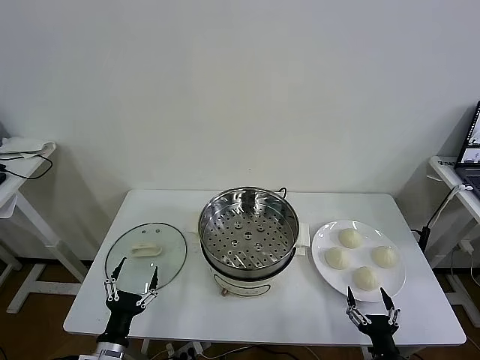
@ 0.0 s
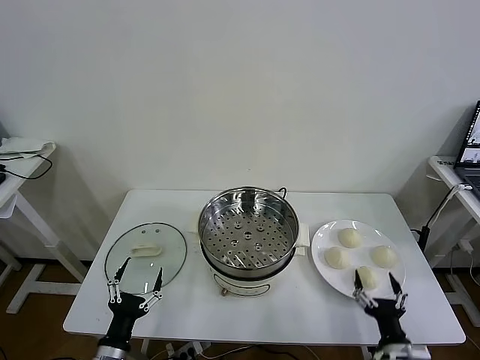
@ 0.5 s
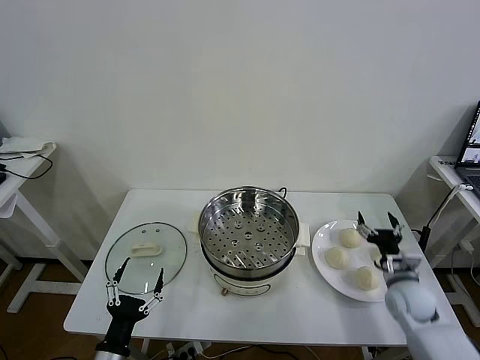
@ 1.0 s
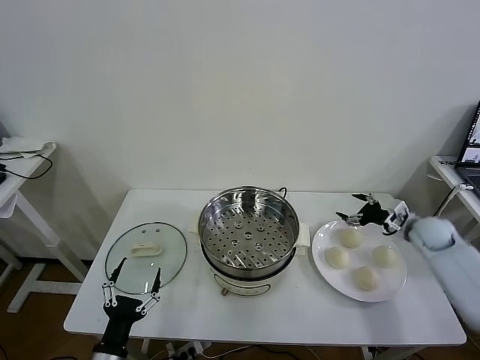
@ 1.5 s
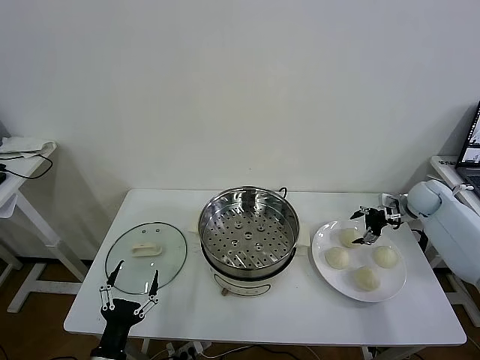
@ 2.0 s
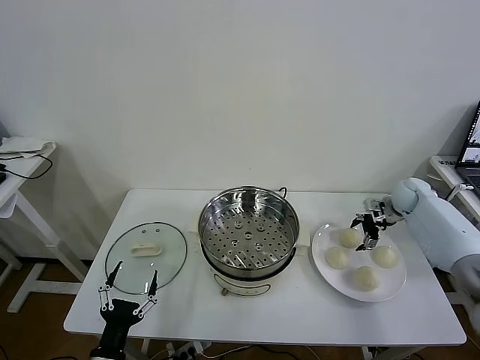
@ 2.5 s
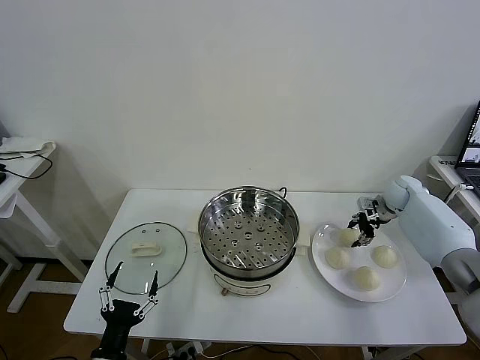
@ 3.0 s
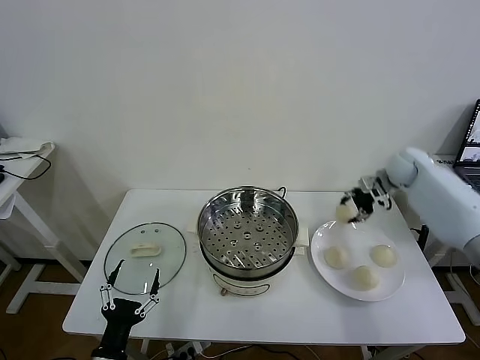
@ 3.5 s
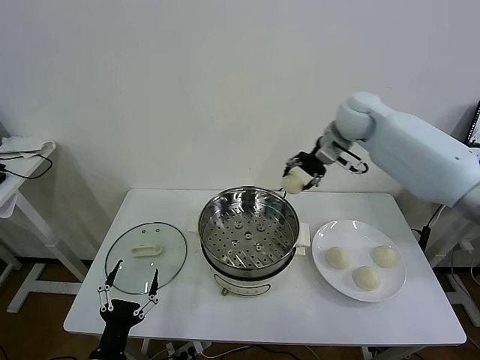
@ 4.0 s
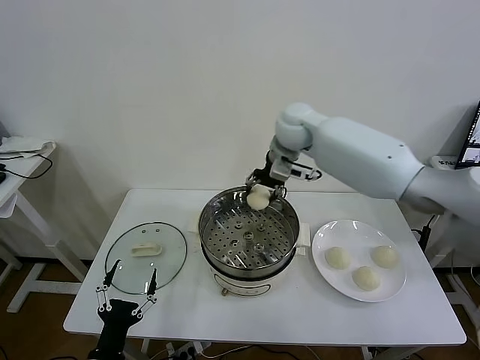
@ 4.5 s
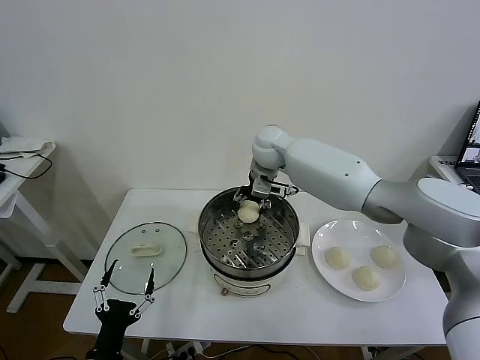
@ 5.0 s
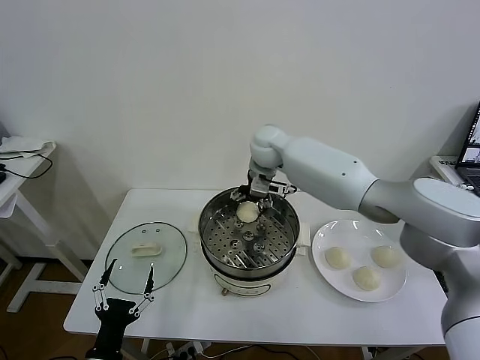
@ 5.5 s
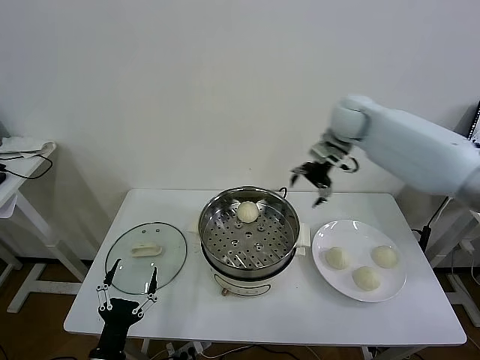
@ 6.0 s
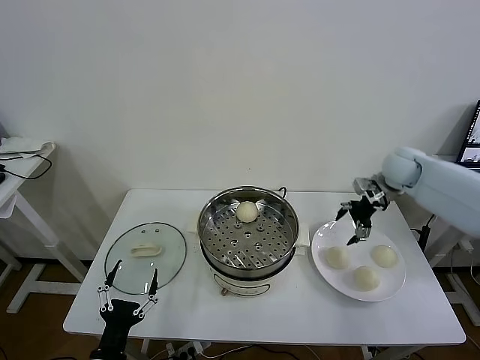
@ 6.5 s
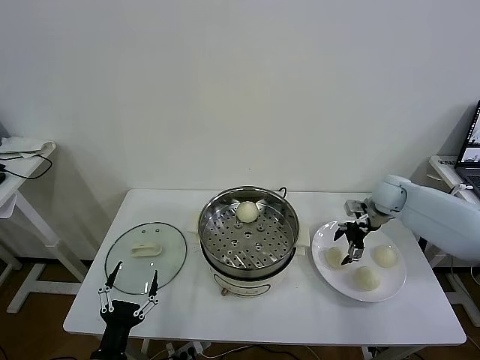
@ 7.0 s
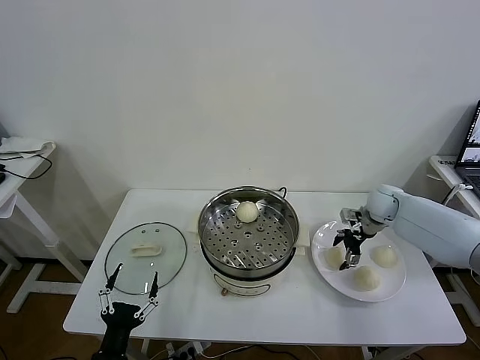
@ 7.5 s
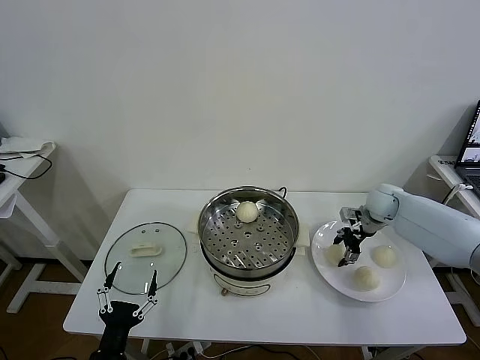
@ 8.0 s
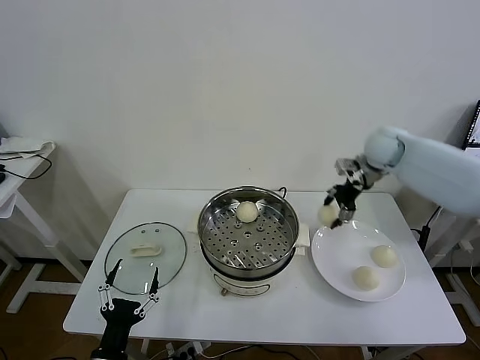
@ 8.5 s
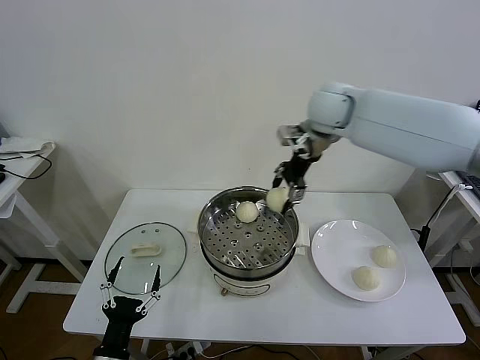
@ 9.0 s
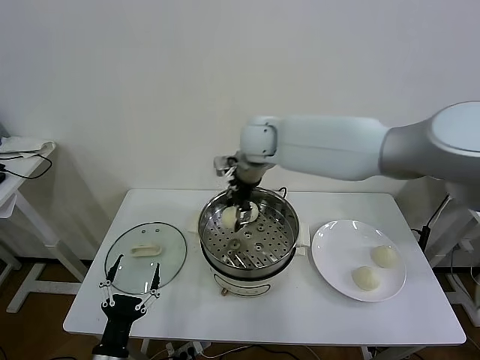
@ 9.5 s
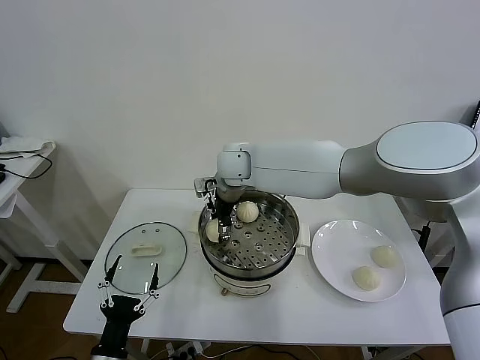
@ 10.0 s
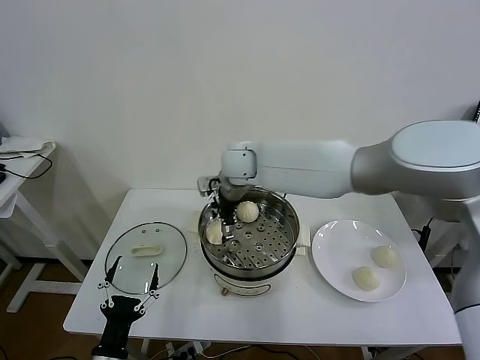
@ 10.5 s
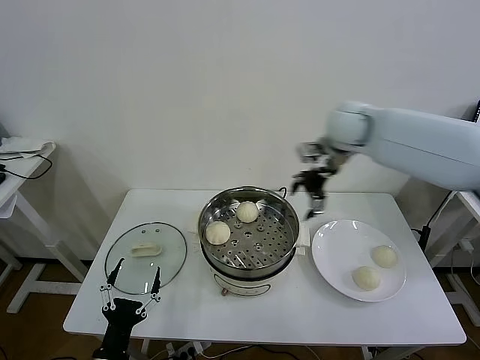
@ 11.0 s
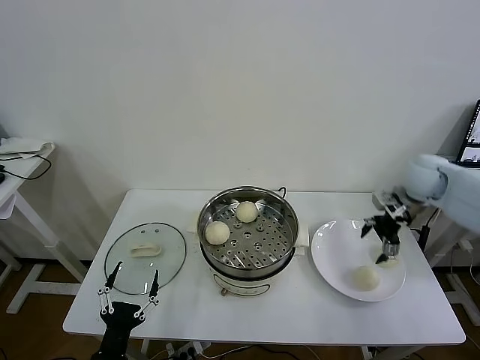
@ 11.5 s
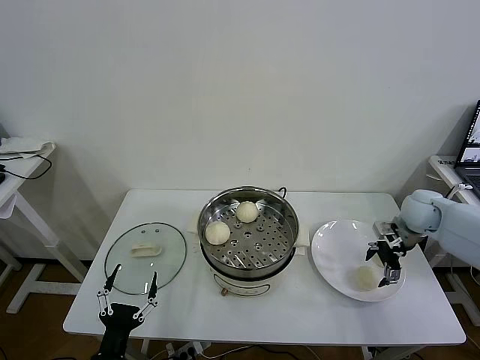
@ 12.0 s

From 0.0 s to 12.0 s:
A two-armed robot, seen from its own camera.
Task of the whole recording: take steamed baozi put them in steamer then cover it.
Step, from 0.0 s to 3.0 s: Grasp the baozi in the plate with right gripper.
Step, from 3.5 s to 5.0 s: Place the baozi on the steamer with right gripper.
Step, from 5.5 s to 7.5 s: Grasp the baozi in the plate with right gripper.
Step, from 8.0 s to 10.0 s: Place the baozi on the steamer with right gripper.
From 2.0 s to 4.0 s: The right gripper travels to the left and upward by about 35 cm, and closes its fingers.
From 4.0 s to 6.0 s: The right gripper goes some 10 cm to the right, and opens up.
From 6.0 s to 8.0 s: The right gripper moves downward and to the right, approximately 20 cm, and closes its fingers.
From 8.0 s to 10.0 s: The right gripper heads to the left, covering approximately 40 cm.
From 10.0 s to 12.0 s: The right gripper shifts approximately 40 cm to the right, and opens up.

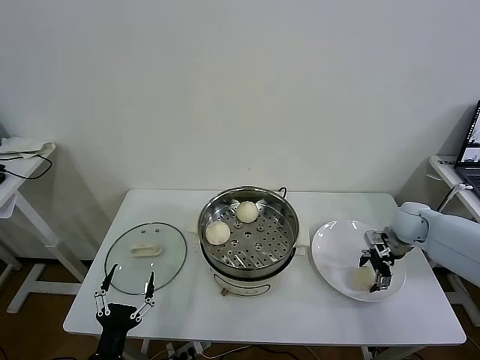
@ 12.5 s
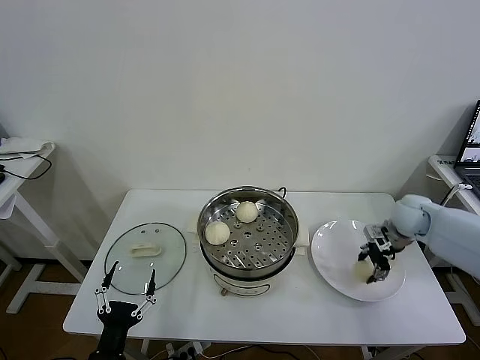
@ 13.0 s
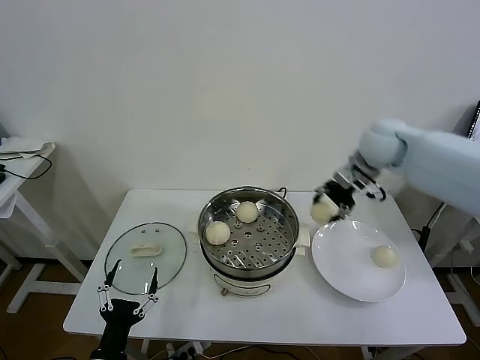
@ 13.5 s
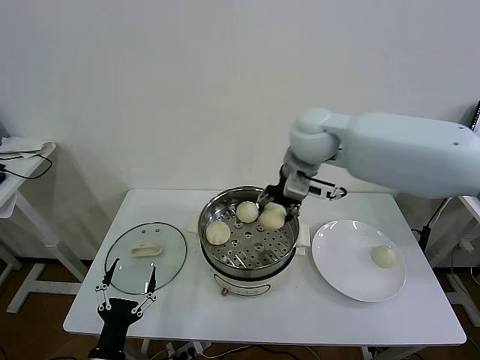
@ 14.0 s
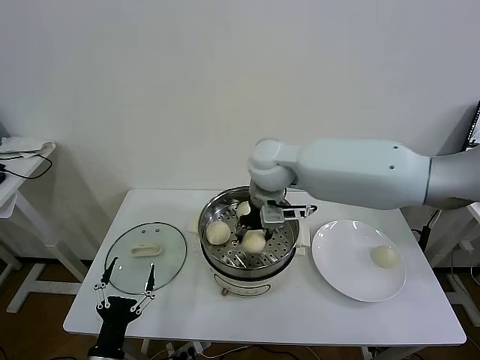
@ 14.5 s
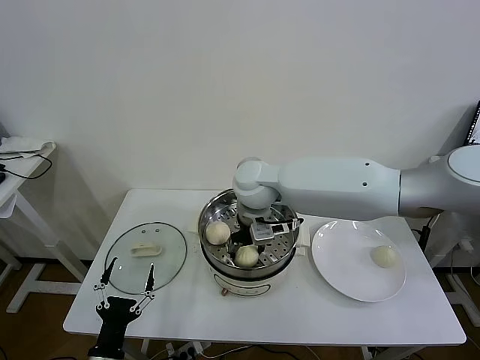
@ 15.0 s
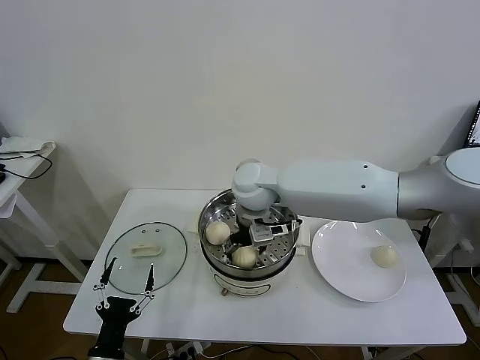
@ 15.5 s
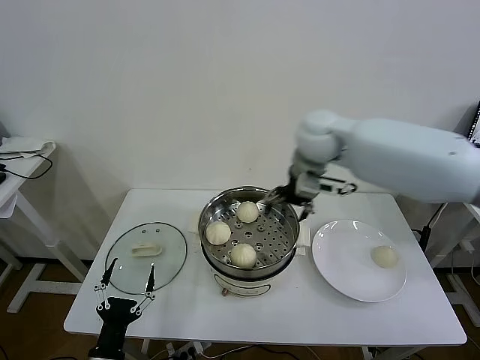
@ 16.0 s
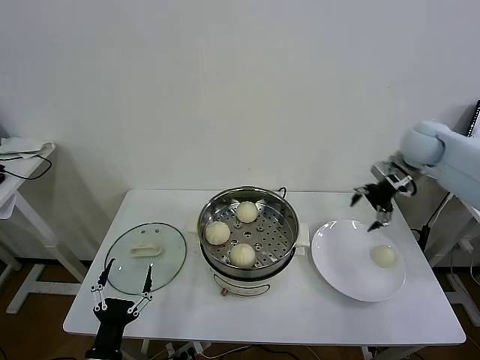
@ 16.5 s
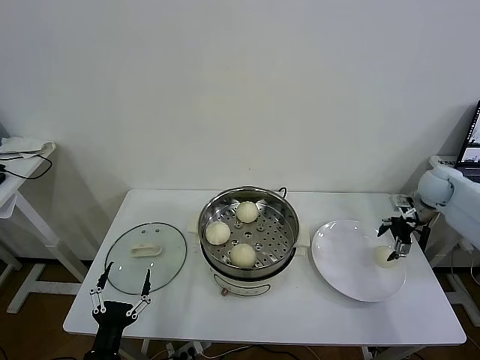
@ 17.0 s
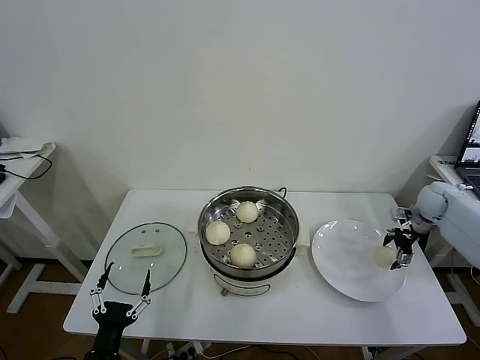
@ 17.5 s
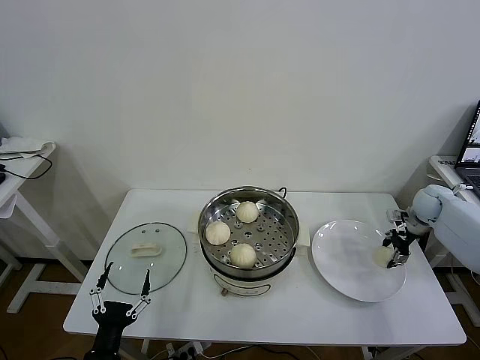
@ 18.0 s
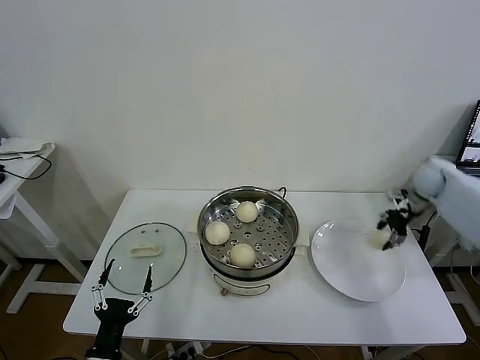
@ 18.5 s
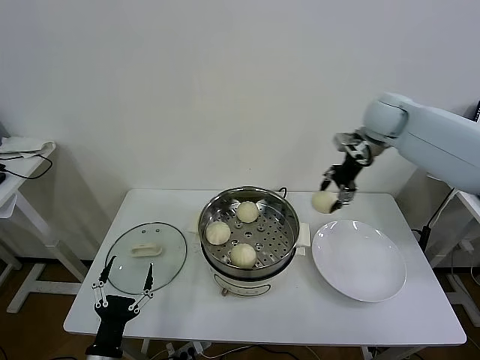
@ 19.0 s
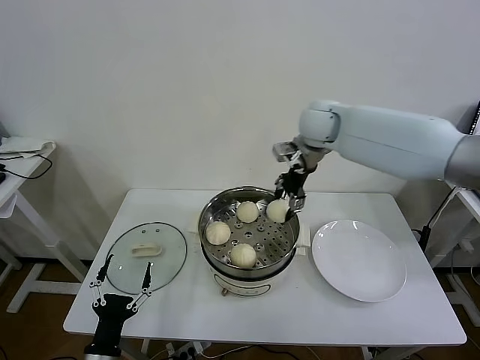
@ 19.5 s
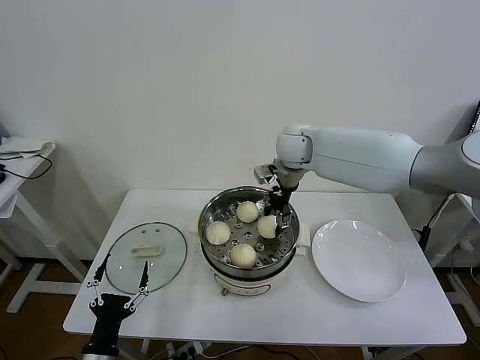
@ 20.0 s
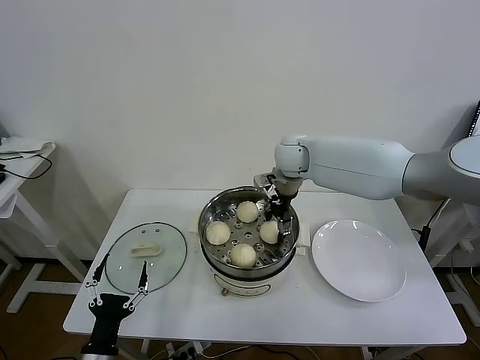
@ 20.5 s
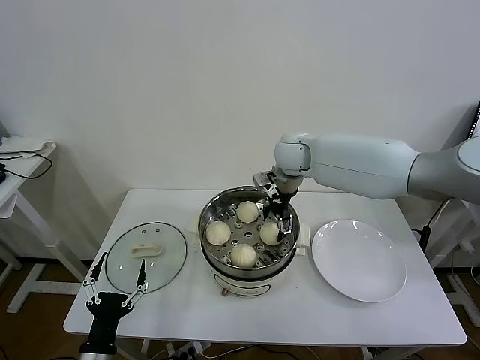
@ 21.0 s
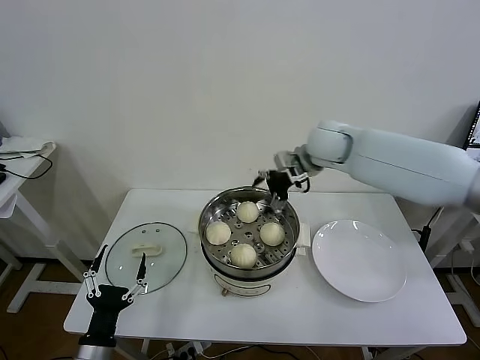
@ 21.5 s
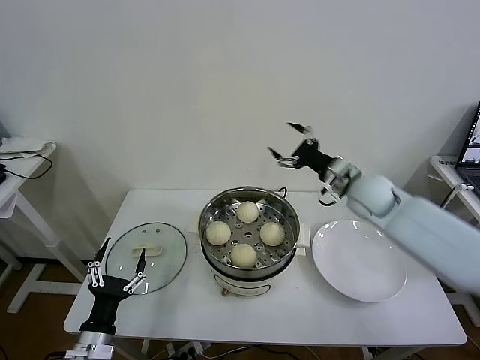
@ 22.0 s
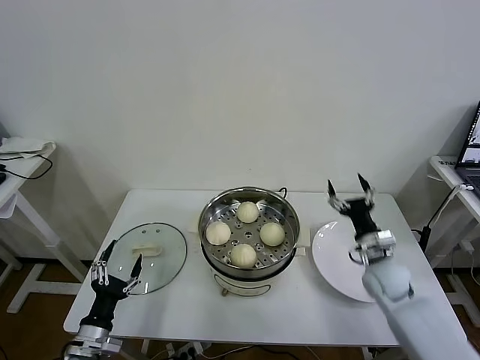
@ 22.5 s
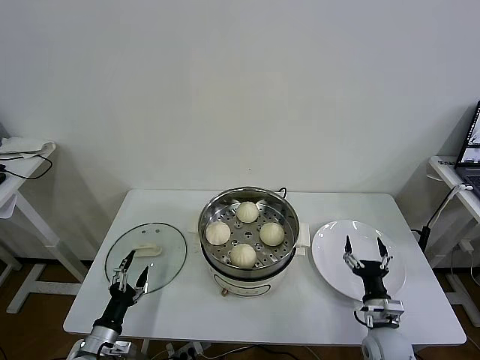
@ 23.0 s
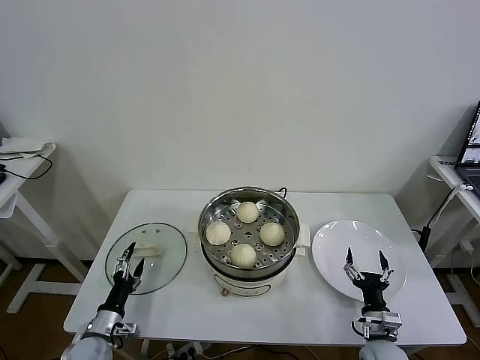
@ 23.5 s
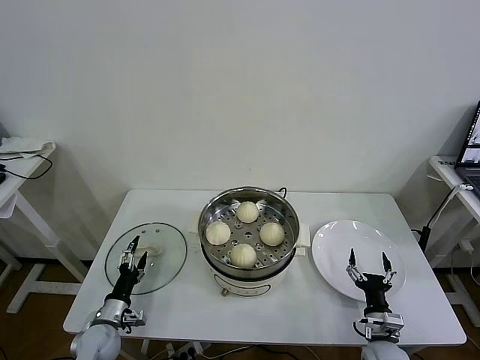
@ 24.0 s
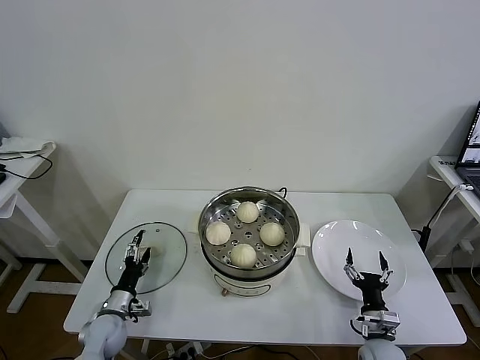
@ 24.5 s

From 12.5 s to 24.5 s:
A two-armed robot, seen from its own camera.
Task of the whole recording: take steamed baozi put them in steamer then cover it.
Step, from 13.0 s to 15.0 s: Place the baozi on the steamer with right gripper.
Step, from 15.5 s to 18.0 s: Grasp the baozi in the plate with right gripper.
Step, from 18.5 s to 20.5 s: Place the baozi on the steamer with right gripper.
From 12.5 s to 14.5 s: The right gripper heads to the left and upward, covering about 40 cm, and closes up.
From 14.5 s to 16.5 s: The right gripper shifts about 35 cm to the right, and opens up.
From 16.5 s to 18.5 s: The right gripper is displaced downward and to the right by about 10 cm, and closes up.
From 18.5 s to 20.5 s: The right gripper goes about 35 cm to the left, and opens up.
From 20.5 s to 22.5 s: The left gripper travels forward by approximately 5 cm, while the right gripper heads to the right, downward and backward, covering some 35 cm, and opens up.
From 22.5 s to 24.5 s: The left gripper goes about 15 cm forward and downward. Meanwhile the right gripper travels backward and downward by approximately 20 cm.

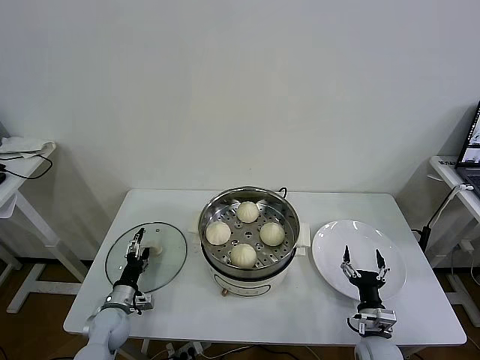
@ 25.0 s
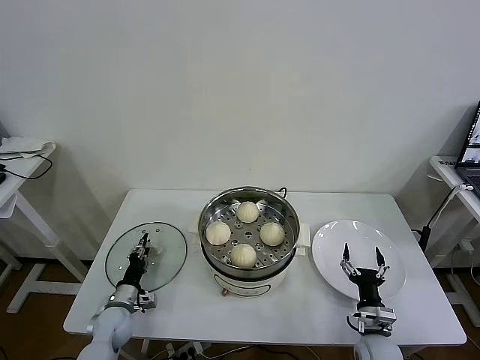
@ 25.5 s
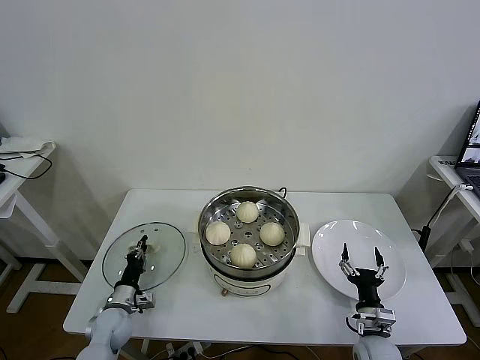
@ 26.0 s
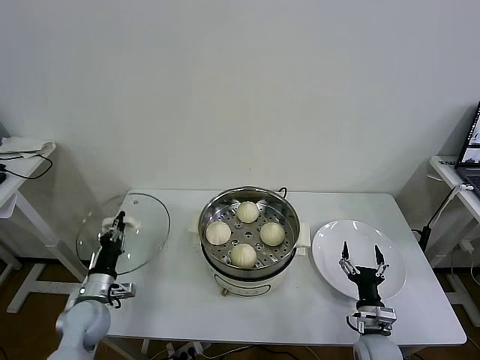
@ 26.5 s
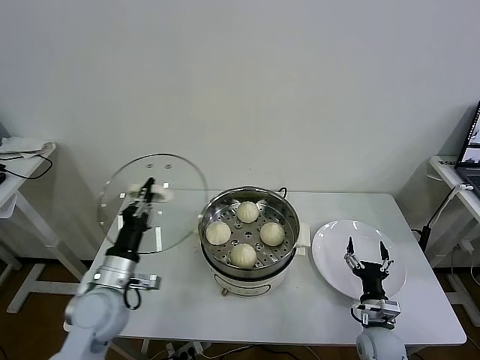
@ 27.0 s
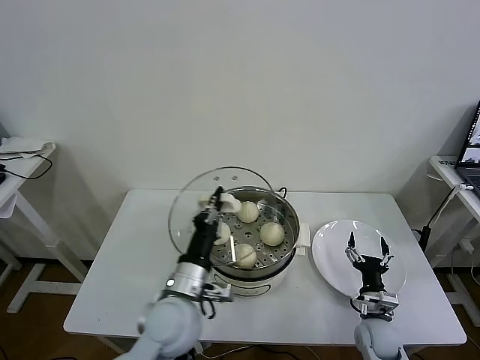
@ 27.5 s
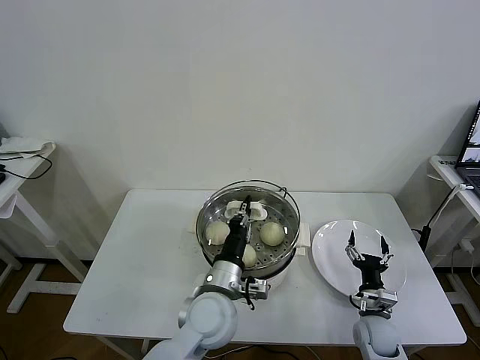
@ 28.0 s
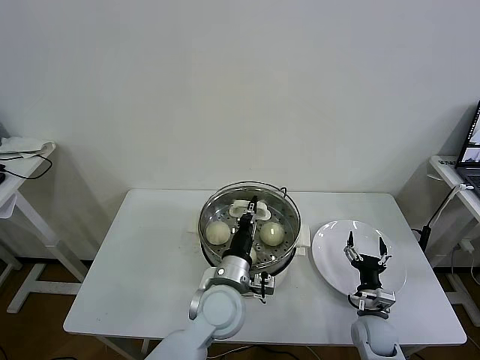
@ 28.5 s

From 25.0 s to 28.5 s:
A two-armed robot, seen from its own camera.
Task of the whole recording: take steamed baozi put them in steamer then cover it.
From 25.0 s to 27.0 s: The left gripper heads upward, covering about 20 cm, and closes.
From 27.0 s to 28.5 s: The left gripper travels to the right by roughly 25 cm.
